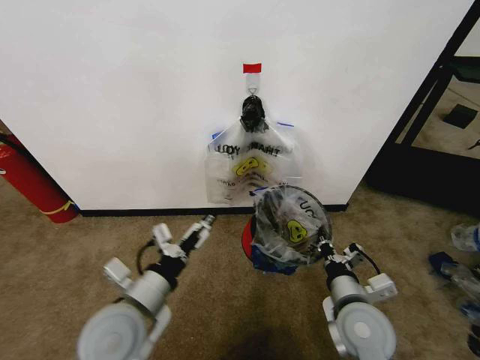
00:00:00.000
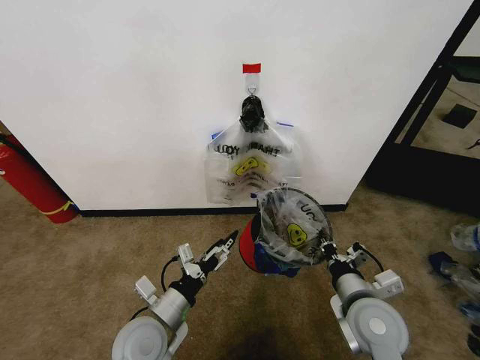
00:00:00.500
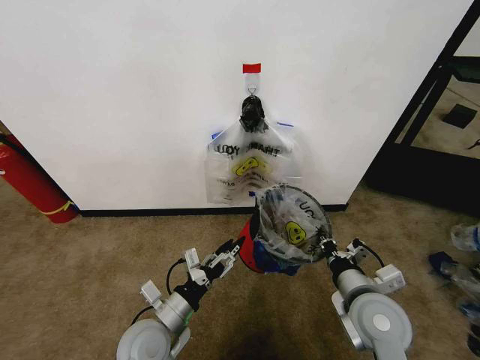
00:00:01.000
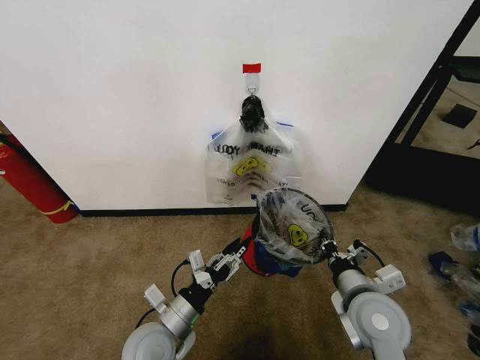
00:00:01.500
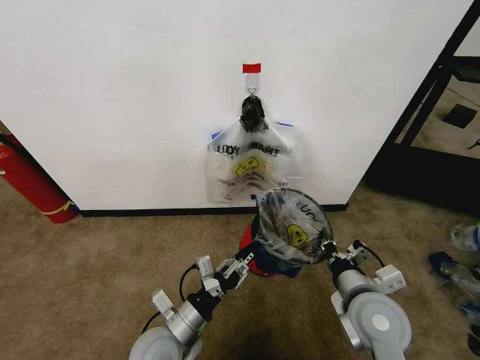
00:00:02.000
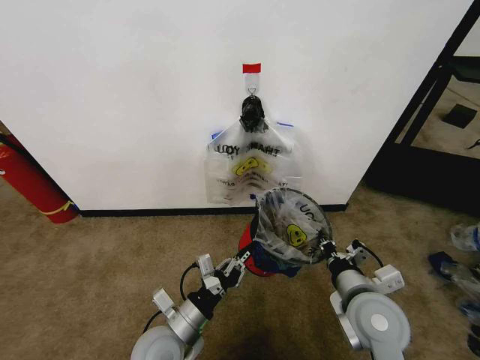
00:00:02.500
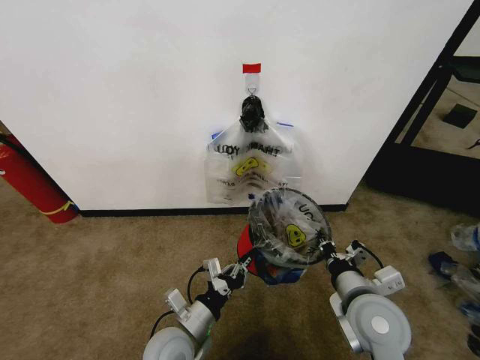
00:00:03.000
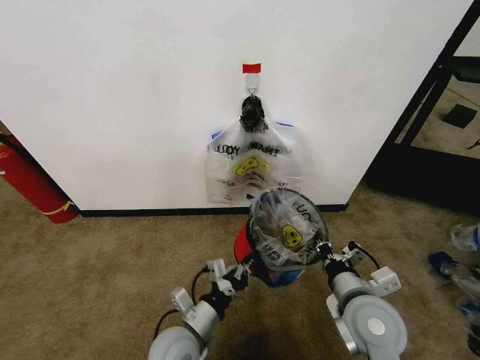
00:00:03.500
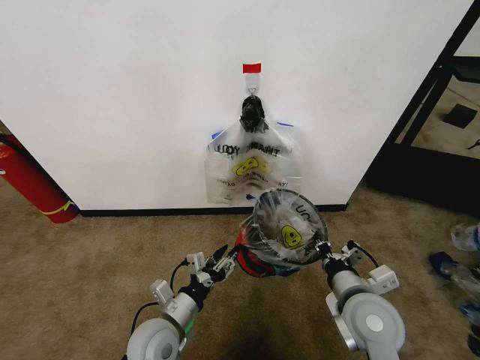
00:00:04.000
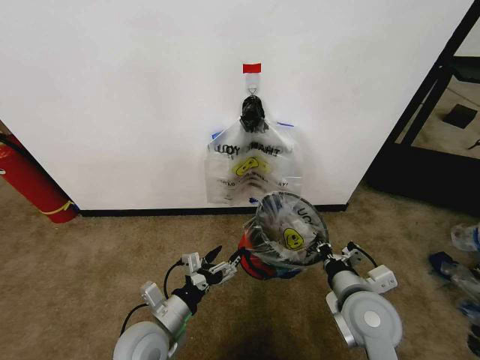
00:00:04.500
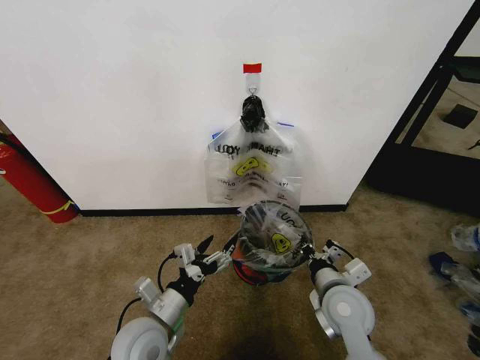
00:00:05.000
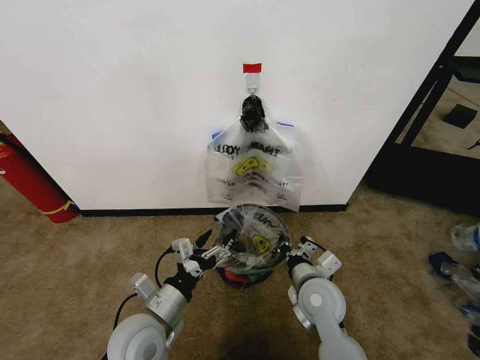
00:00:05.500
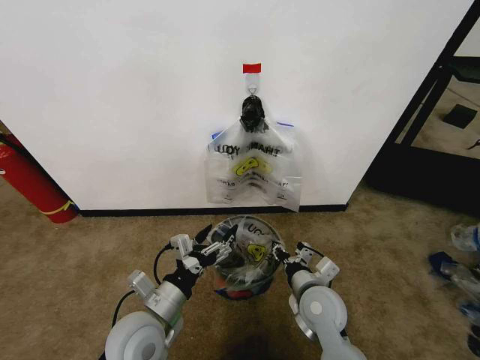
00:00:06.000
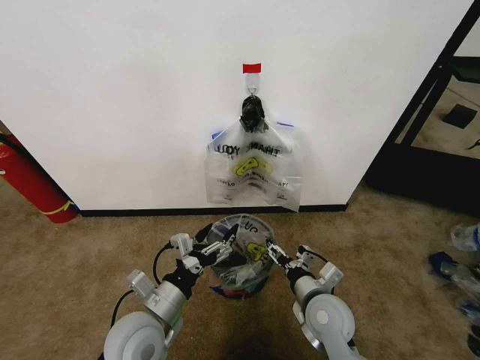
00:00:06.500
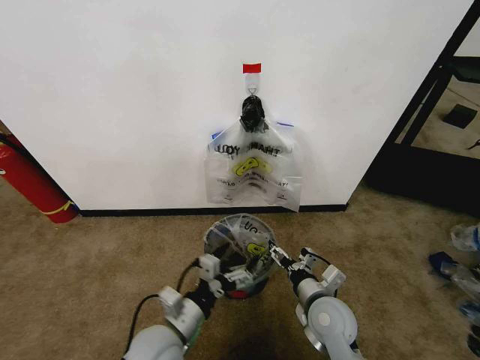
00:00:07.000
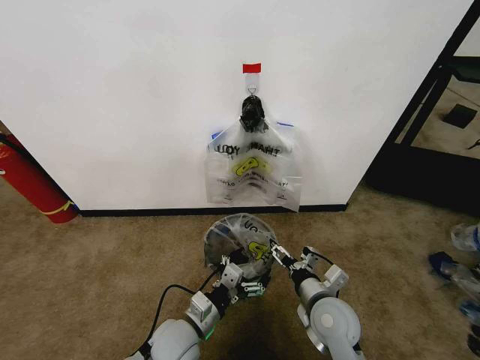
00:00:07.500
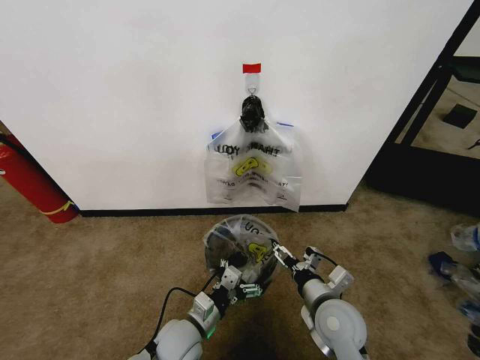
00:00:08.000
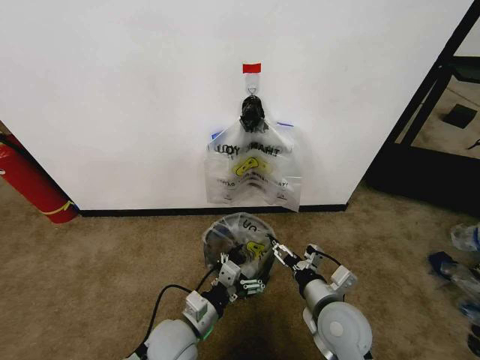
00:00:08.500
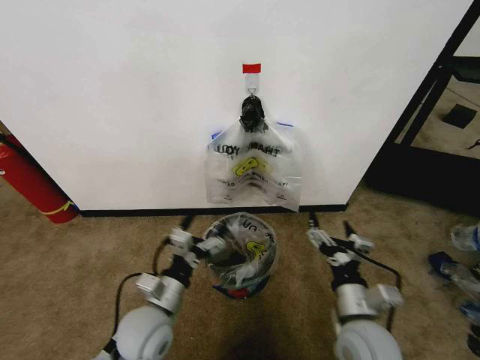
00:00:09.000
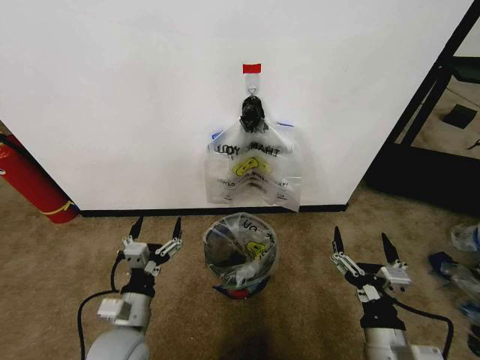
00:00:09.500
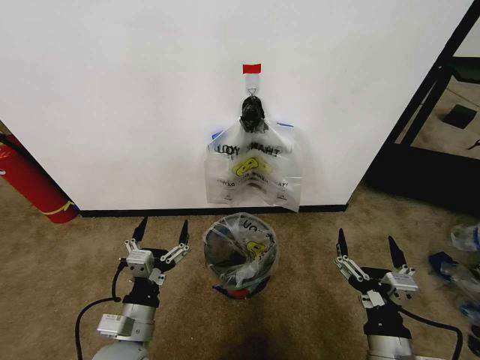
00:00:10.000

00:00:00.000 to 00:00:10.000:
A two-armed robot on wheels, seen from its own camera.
Task of the whole recording: Pick up the garbage bag from the wall and place it over the trash bin.
00:00:00.000 to 00:00:02.000: The left gripper goes approximately 10 cm downward, and closes.
00:00:04.000 to 00:00:06.000: The left gripper heads upward, covering roughly 5 cm, and opens its fingers. Meanwhile the right gripper goes approximately 10 cm downward and to the left, and opens.
00:00:06.000 to 00:00:08.000: The right gripper opens its fingers, while the left gripper heads downward and to the right, covering about 10 cm.
00:00:08.000 to 00:00:10.000: The left gripper heads upward, to the left and backward, covering about 15 cm. Meanwhile the right gripper goes some 15 cm backward.
